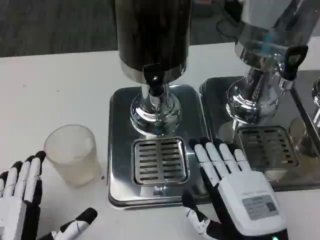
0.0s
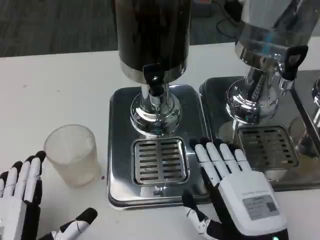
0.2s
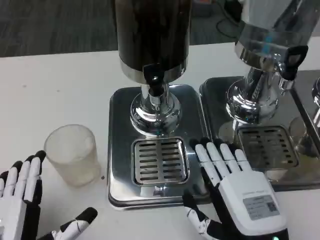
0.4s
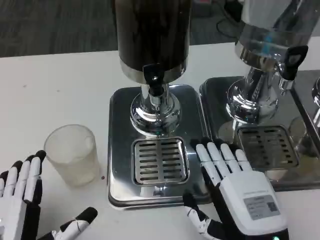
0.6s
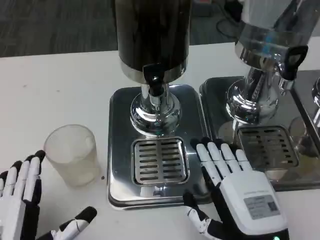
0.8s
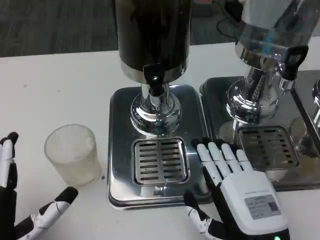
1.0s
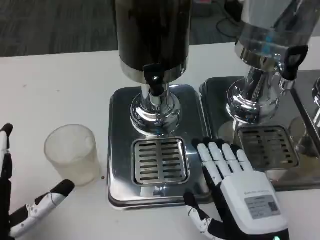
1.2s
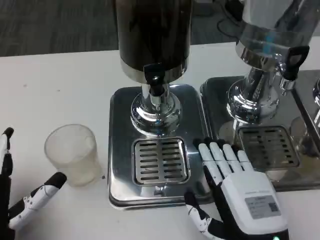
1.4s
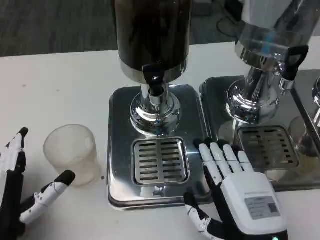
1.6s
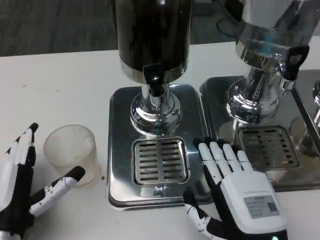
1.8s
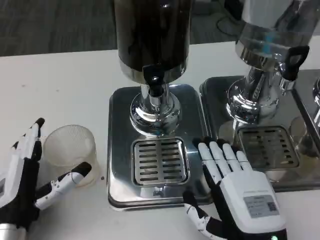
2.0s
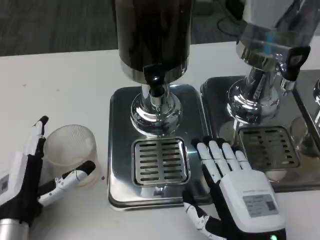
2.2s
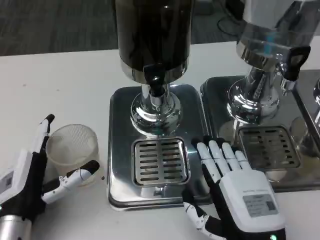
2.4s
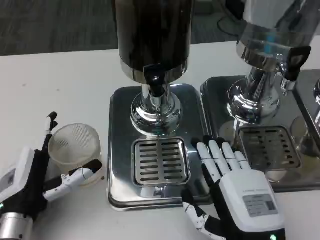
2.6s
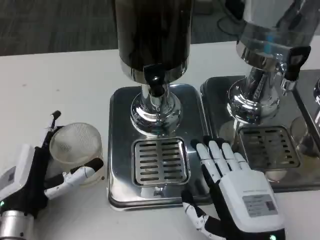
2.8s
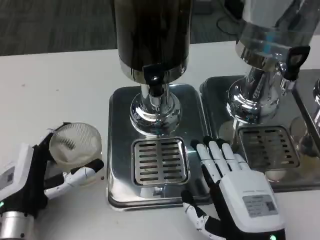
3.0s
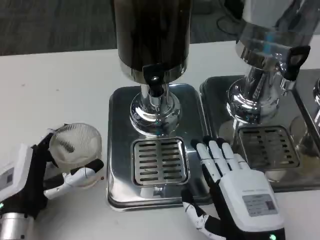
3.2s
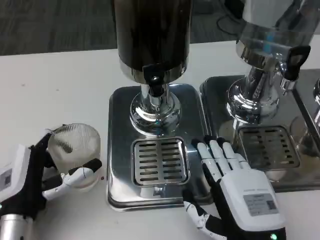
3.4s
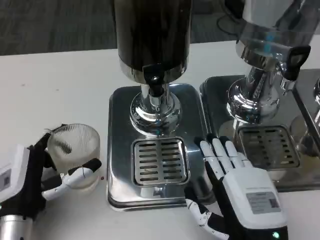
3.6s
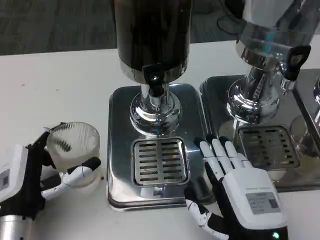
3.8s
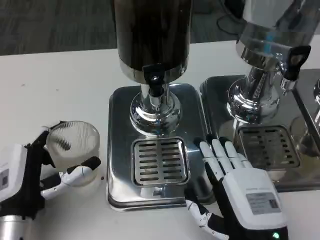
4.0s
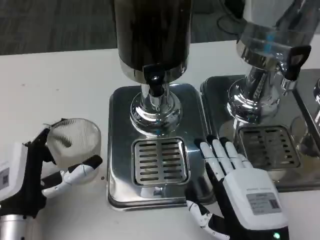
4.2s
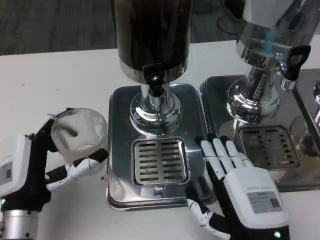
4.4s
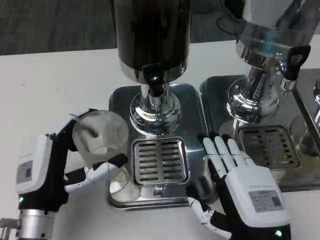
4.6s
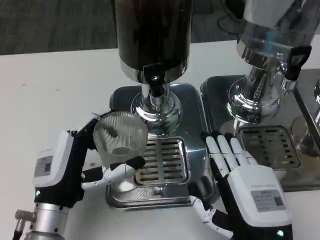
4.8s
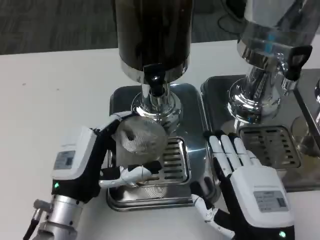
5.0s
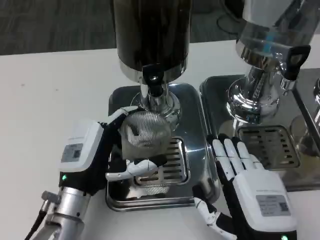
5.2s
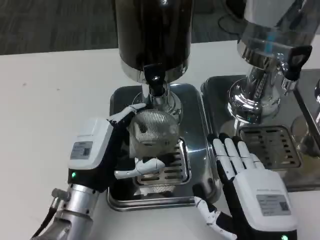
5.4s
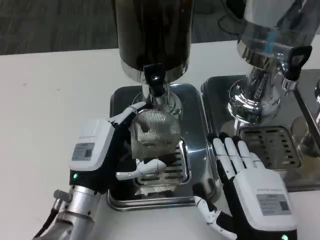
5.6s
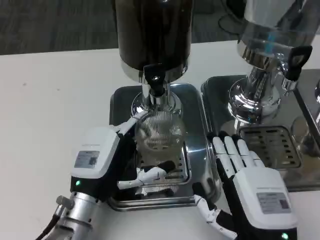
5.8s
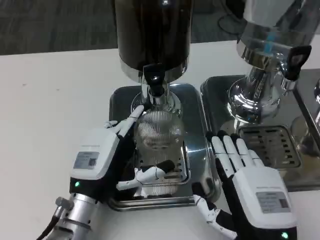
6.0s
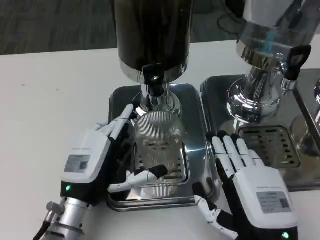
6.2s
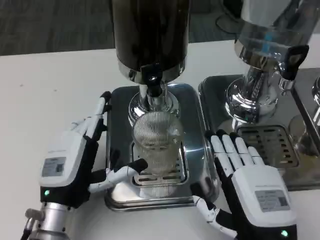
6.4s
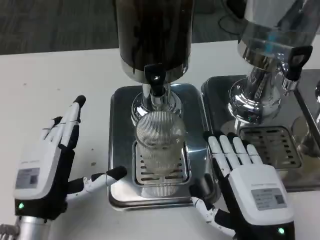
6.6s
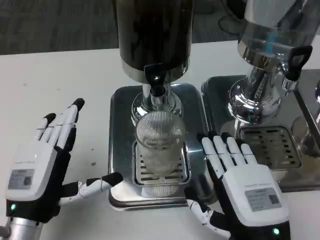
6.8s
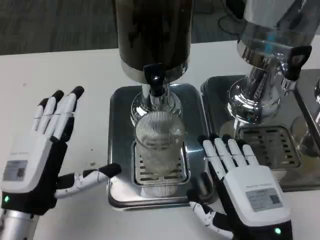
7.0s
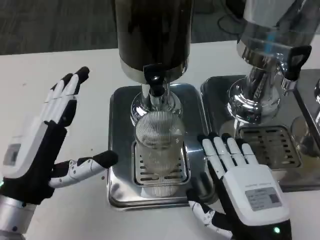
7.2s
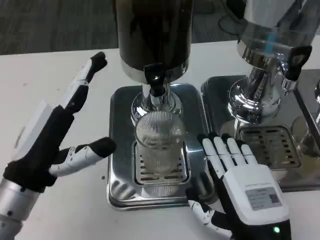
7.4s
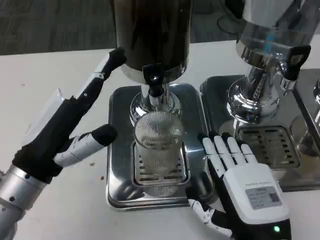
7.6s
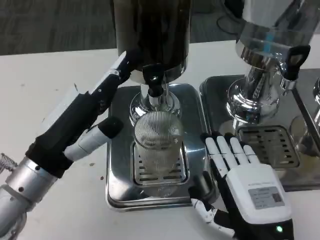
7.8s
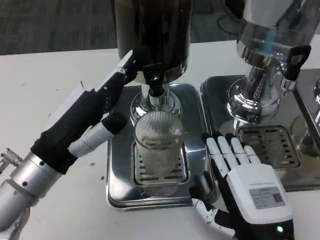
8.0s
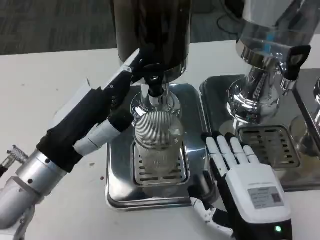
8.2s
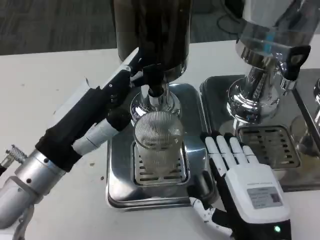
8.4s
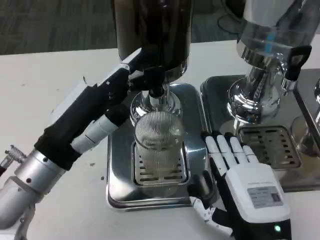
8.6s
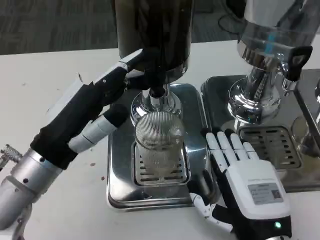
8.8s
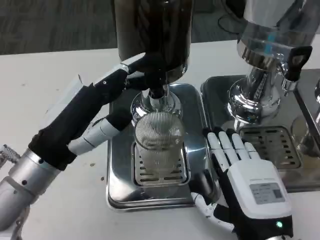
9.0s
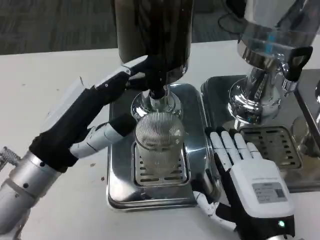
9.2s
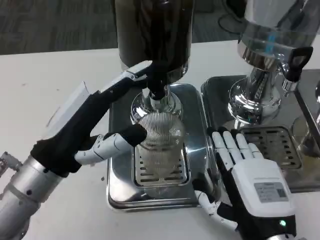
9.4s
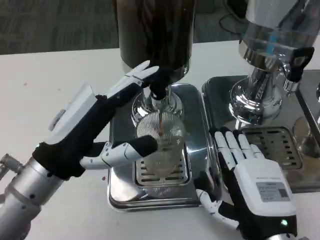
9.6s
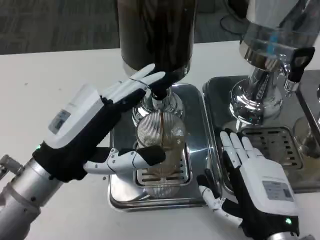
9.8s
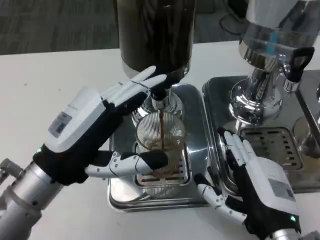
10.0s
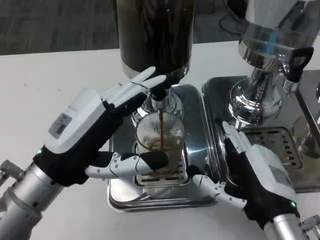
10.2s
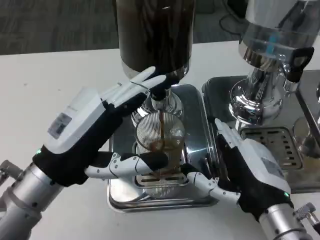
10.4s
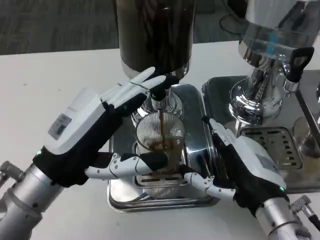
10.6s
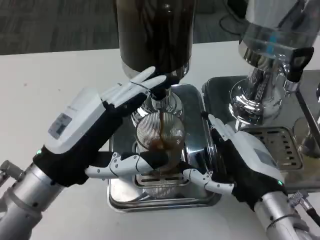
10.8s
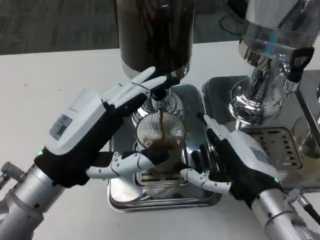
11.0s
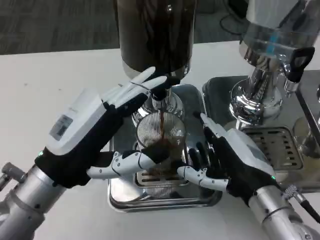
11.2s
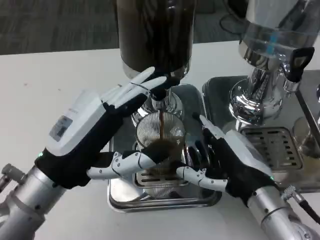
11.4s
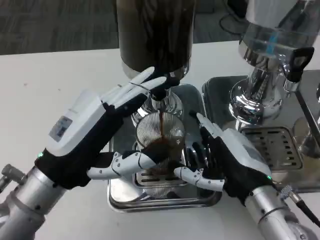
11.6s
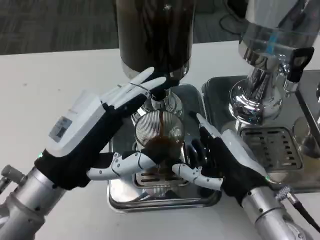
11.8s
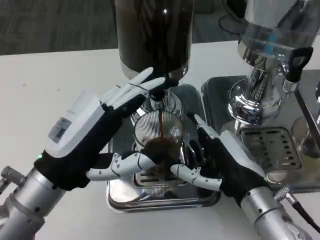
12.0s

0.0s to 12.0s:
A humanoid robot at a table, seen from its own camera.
Task of the whole recording: Grasp the cup under the faucet to collect the drink, then remove the cup.
0.0s to 1.6s: The left hand moves forward, approximately 5 cm.
1.6s to 4.4s: The hands make only small movements.
4.4s to 6.0s: The left hand travels to the right by some 5 cm.
6.0s to 7.6s: The left hand heads upward and to the left, covering roughly 15 cm.
7.6s to 9.0s: The hands make only small movements.
10.4s to 12.0s: The hands move only a little.

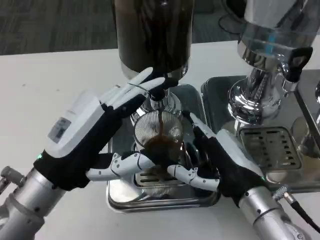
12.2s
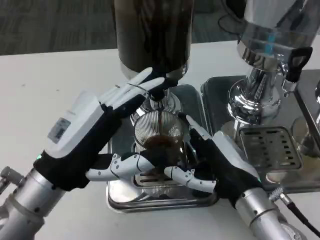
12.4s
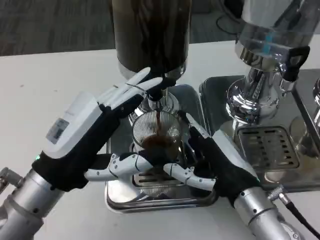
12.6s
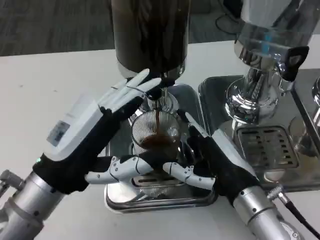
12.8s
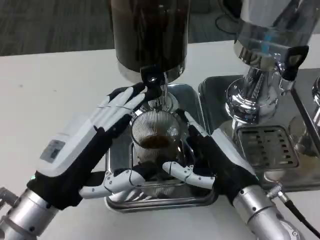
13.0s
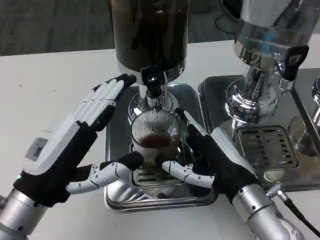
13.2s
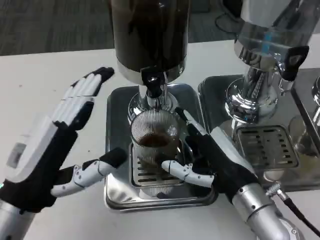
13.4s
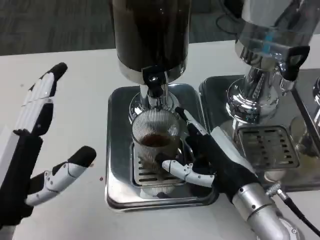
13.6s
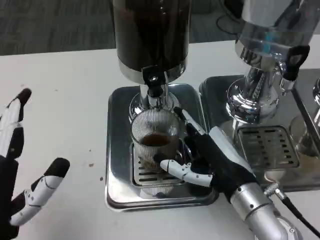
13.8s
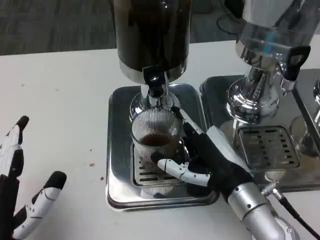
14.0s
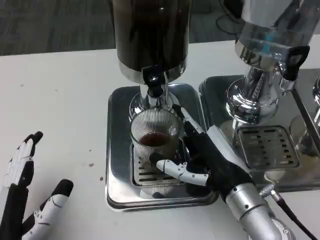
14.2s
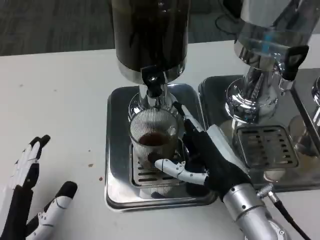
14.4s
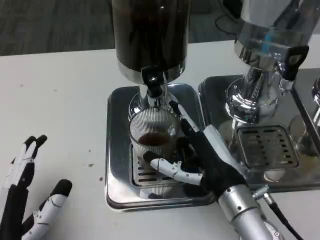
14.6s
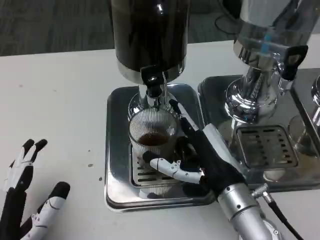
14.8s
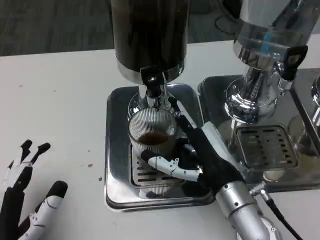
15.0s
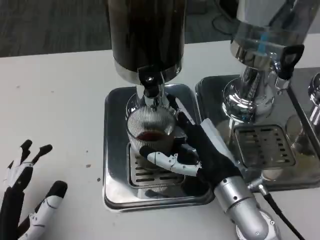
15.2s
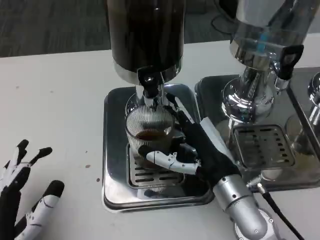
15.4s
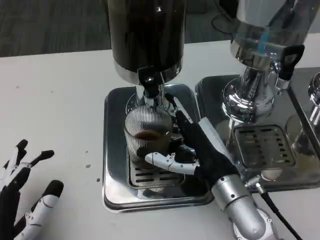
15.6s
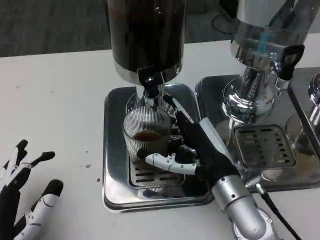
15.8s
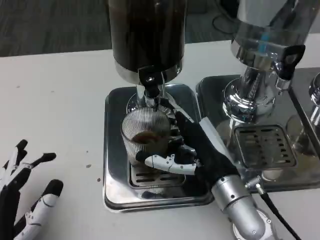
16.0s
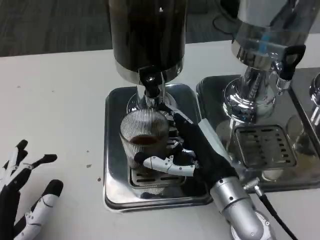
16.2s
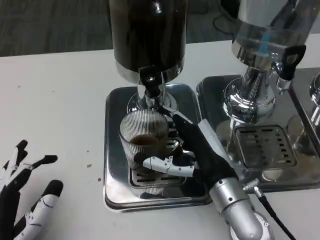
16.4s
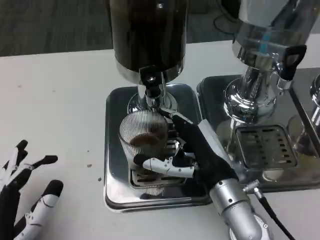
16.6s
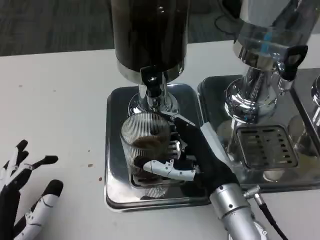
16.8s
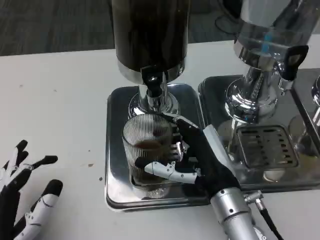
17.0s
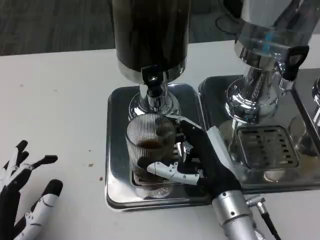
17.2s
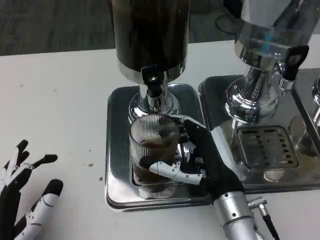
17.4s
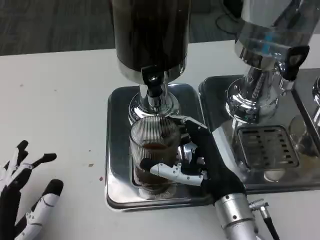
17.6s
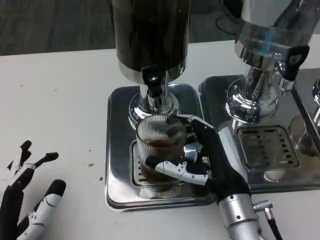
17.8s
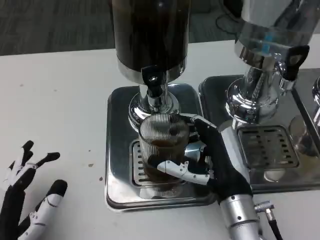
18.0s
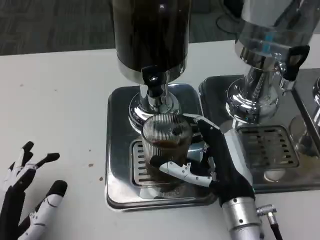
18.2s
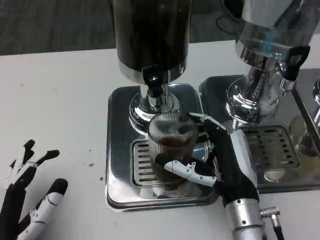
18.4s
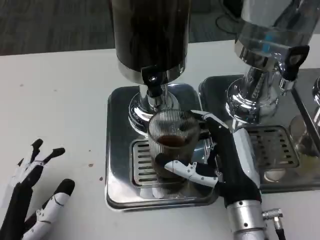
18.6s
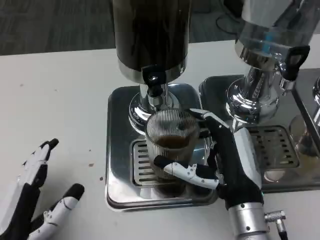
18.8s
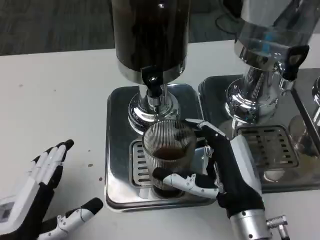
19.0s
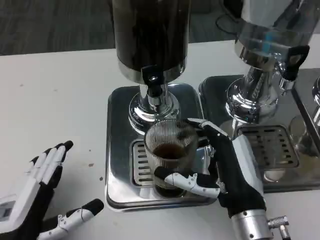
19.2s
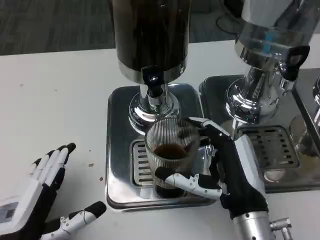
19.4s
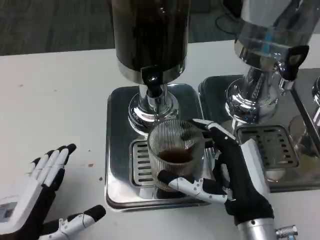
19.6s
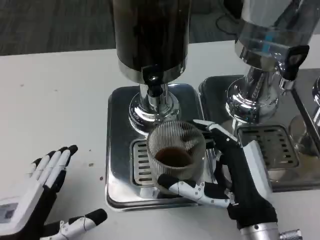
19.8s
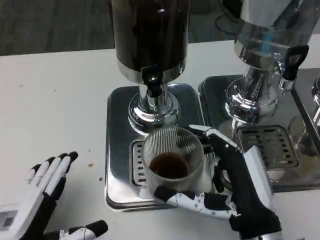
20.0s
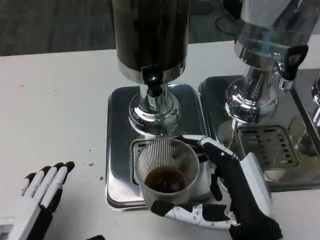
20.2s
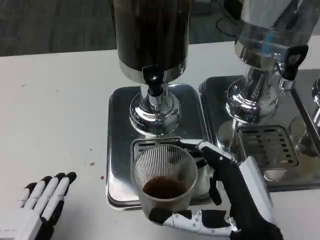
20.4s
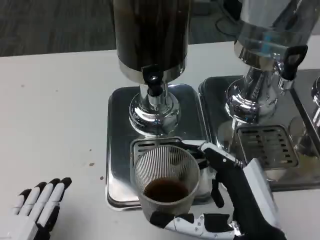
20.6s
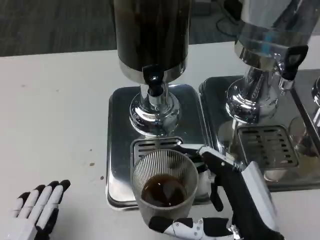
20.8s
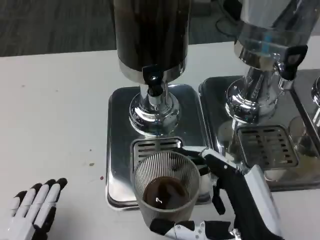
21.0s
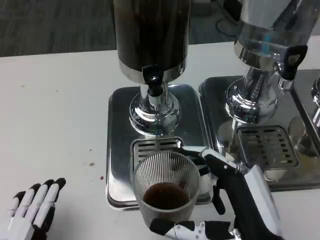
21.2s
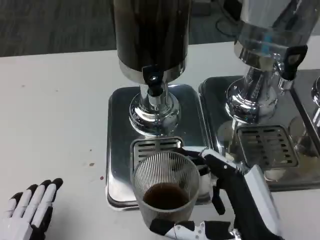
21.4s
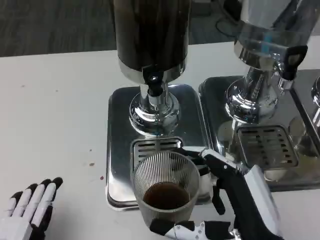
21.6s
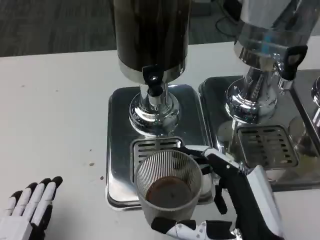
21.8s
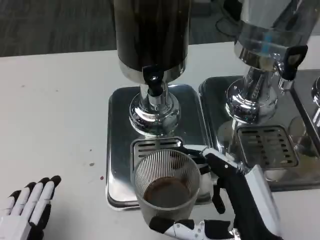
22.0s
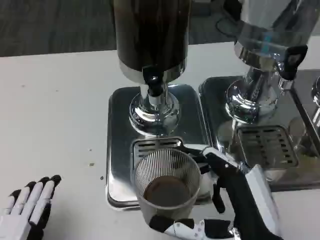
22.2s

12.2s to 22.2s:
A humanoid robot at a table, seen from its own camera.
Task of the whole recording: Grasp the cup under the faucet to collect the drink, then remove the cup.
12.2s to 13.6s: The left hand is displaced backward by roughly 5 cm.
13.6s to 15.0s: The left hand moves downward, some 5 cm.
15.0s to 16.4s: Both hands stay put.
19.4s to 20.8s: Both hands move backward, approximately 5 cm.
20.8s to 22.2s: The two hands keep their place.
